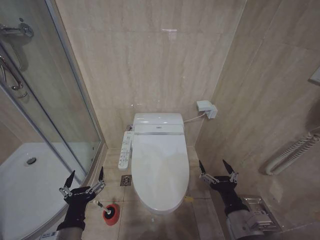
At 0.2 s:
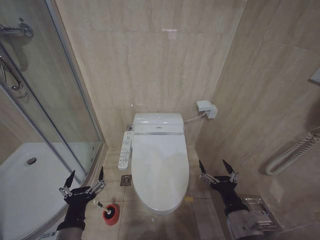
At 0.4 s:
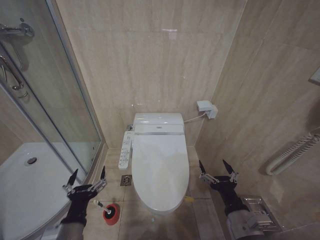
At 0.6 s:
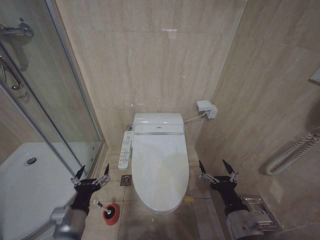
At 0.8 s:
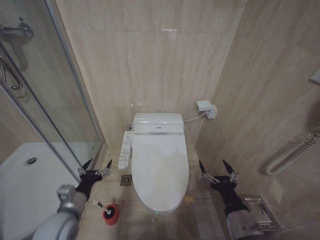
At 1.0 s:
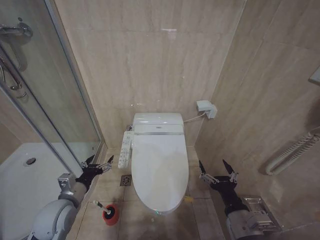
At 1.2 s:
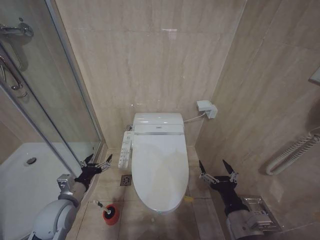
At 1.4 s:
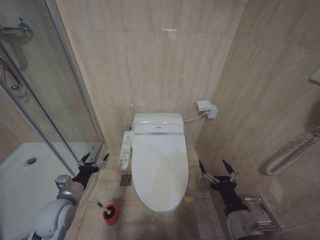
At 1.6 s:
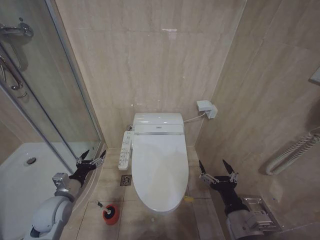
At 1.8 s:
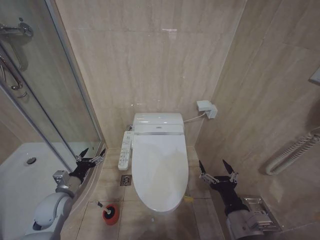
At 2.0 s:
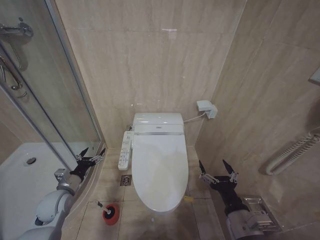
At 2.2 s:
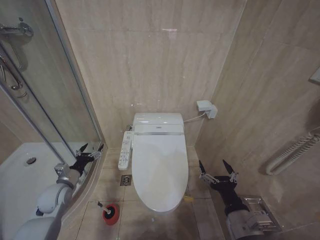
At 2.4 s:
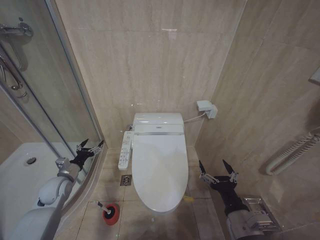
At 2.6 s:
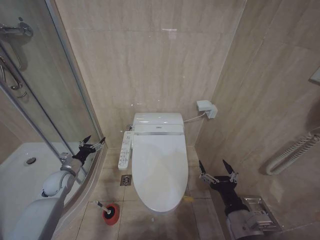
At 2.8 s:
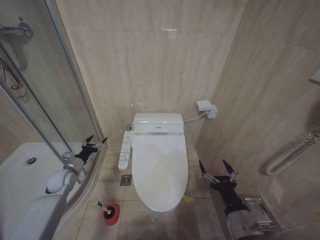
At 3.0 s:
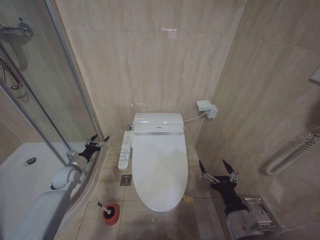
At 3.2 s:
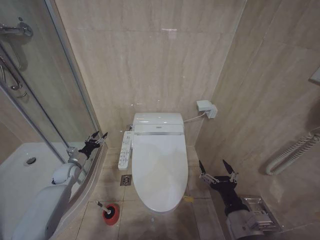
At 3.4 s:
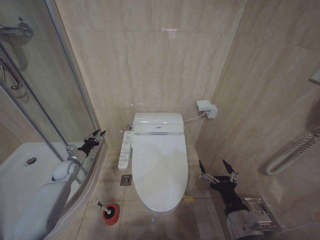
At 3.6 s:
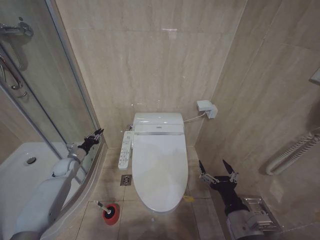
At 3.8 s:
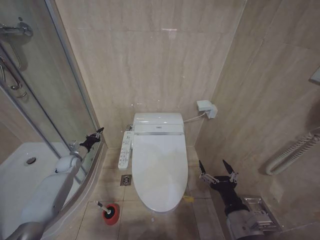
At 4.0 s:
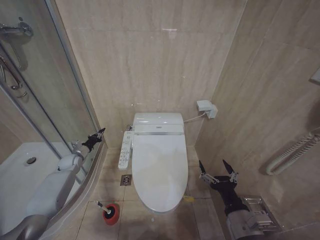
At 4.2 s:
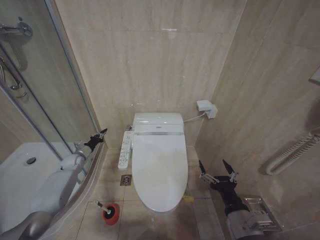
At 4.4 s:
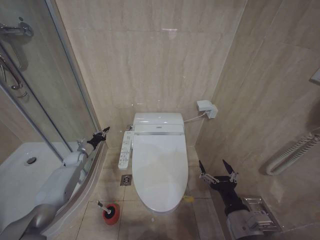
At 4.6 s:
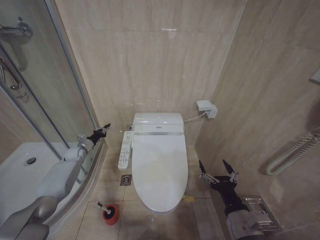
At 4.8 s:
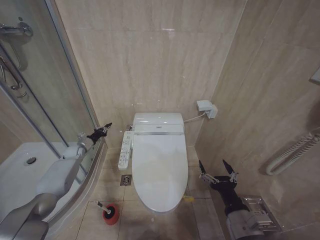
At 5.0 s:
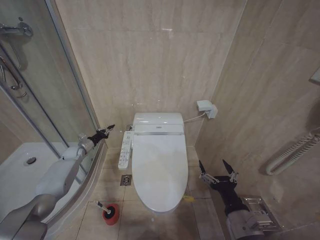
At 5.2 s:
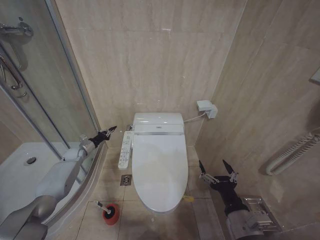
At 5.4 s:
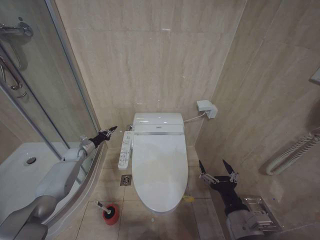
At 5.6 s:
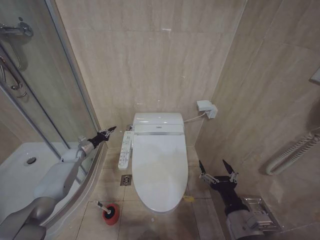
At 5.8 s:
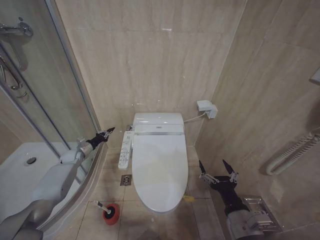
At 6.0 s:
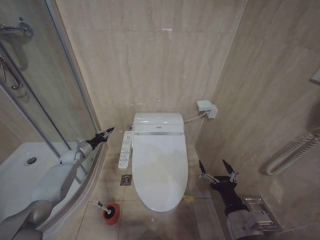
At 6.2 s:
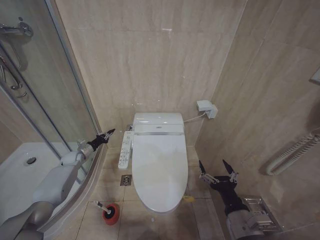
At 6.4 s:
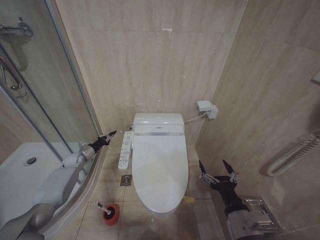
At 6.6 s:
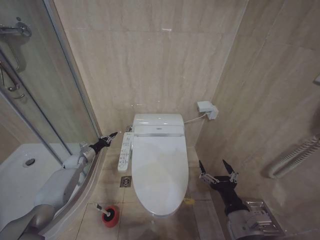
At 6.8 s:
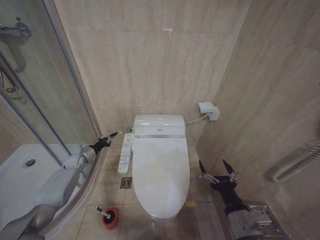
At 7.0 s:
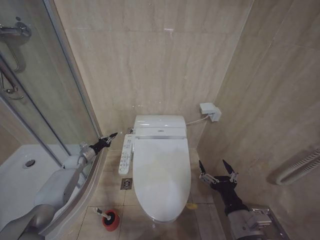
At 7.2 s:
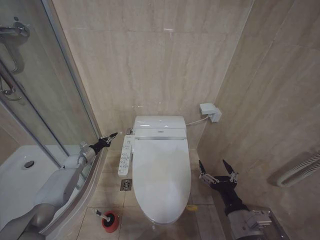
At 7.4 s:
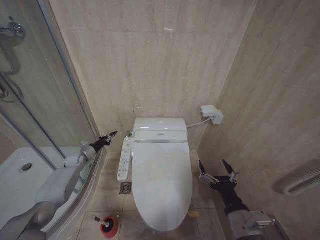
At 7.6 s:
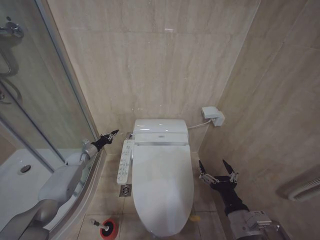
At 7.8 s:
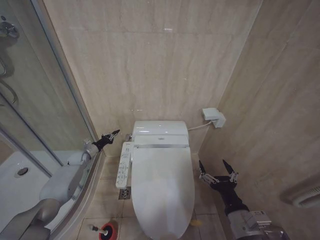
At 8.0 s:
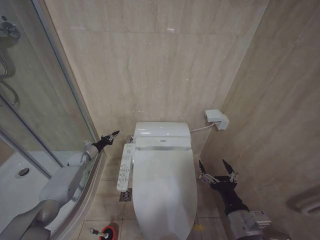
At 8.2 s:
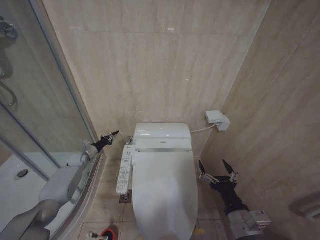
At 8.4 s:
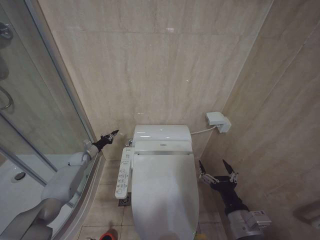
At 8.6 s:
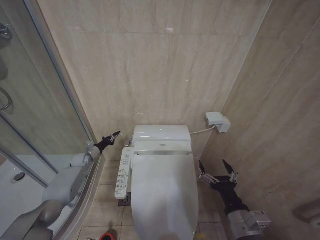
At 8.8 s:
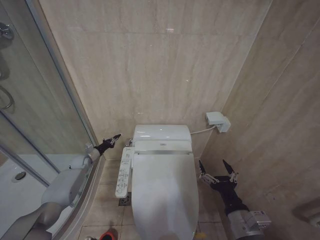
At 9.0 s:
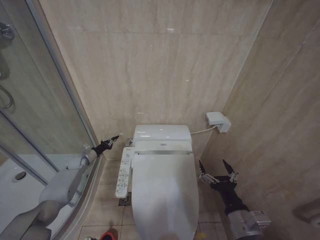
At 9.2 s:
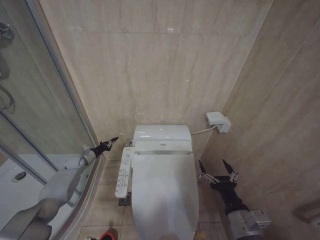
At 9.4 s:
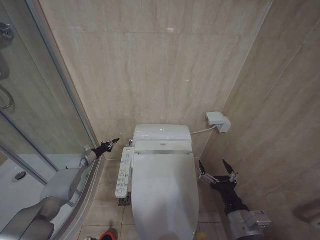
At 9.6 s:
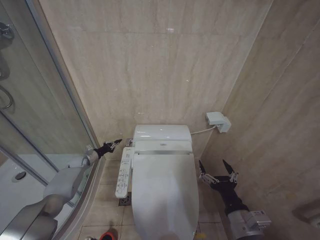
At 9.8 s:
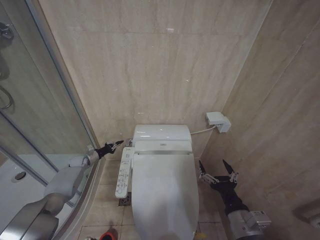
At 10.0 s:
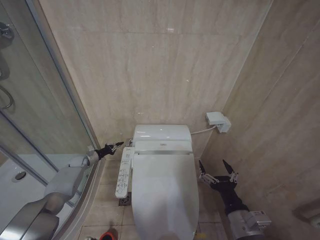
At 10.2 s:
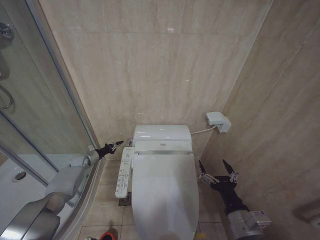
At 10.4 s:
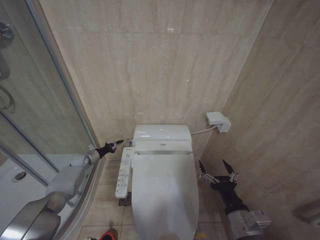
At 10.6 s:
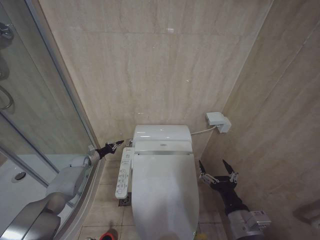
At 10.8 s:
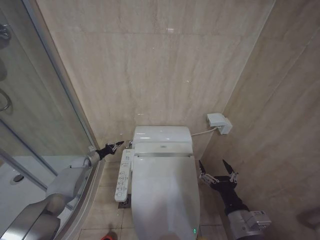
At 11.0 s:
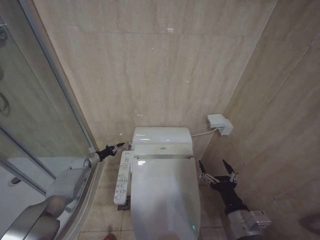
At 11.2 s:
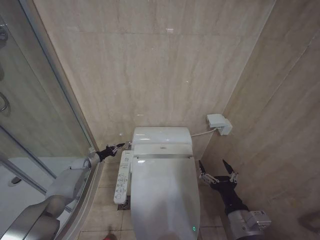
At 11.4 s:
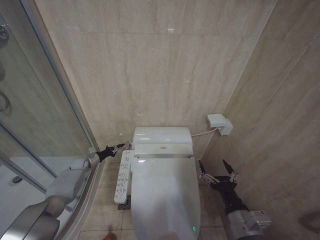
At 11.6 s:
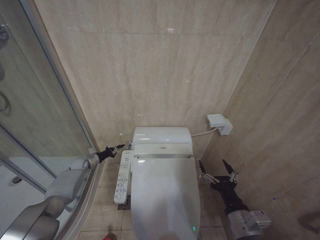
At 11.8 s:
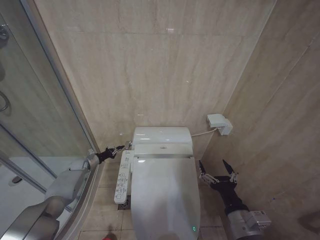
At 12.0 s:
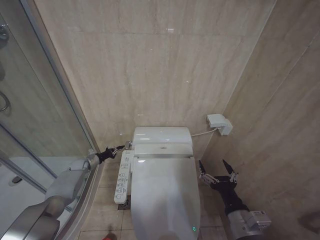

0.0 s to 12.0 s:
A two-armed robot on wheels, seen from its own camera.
Task of the whole recording: Open the toilet lid, clean the toilet bowl with a toilet brush, close the toilet lid, and flush.
0.0 to 1.6 s: The left gripper heads forward and to the left, covering about 20 cm.
1.6 to 3.0 s: The left gripper shifts some 15 cm forward and to the left.
3.0 to 4.4 s: The left gripper moves forward, about 10 cm, and closes its fingers.
4.4 to 9.0 s: The grippers stay close to where they were, moving slightly.
9.0 to 12.0 s: The grippers move only a little.

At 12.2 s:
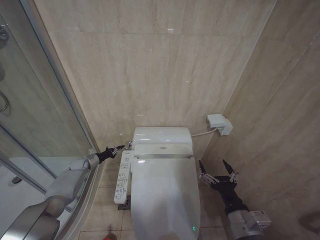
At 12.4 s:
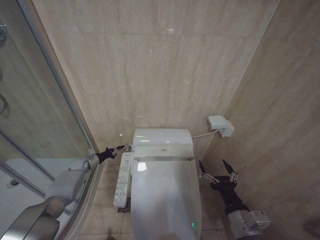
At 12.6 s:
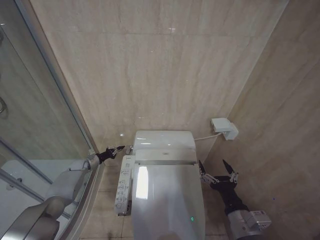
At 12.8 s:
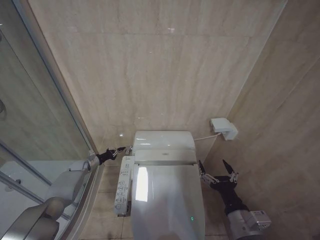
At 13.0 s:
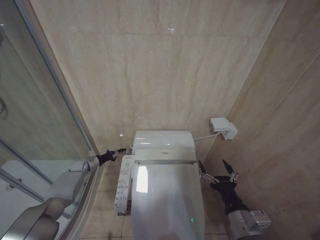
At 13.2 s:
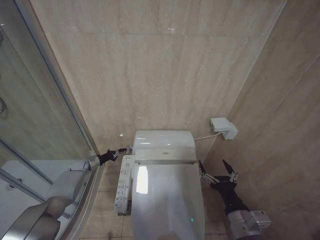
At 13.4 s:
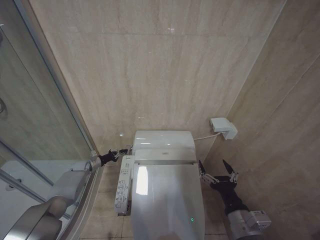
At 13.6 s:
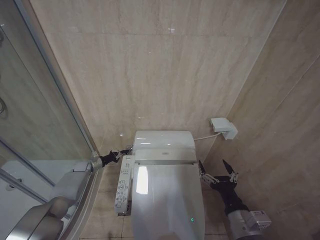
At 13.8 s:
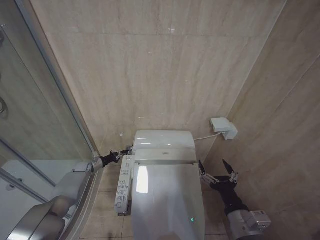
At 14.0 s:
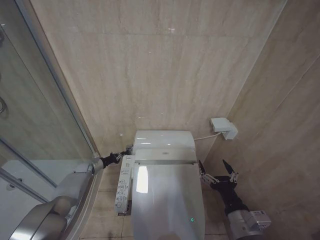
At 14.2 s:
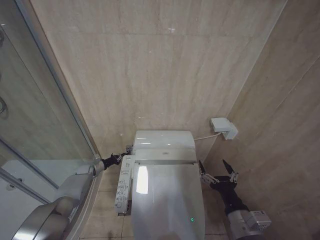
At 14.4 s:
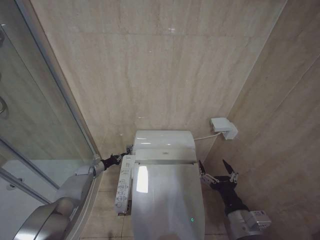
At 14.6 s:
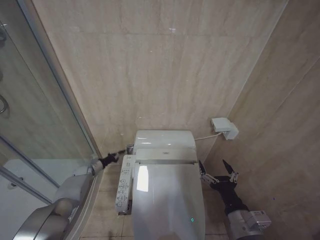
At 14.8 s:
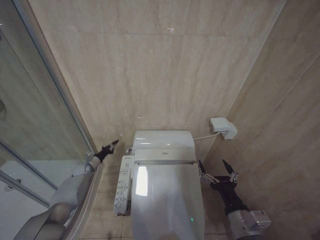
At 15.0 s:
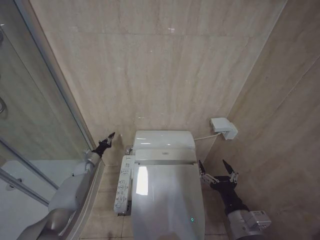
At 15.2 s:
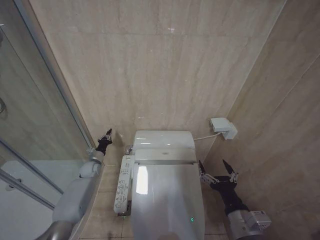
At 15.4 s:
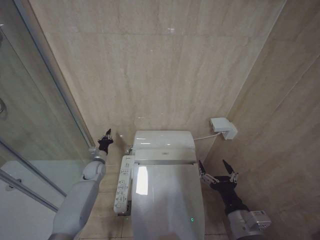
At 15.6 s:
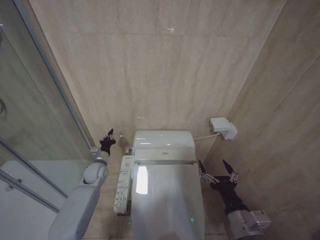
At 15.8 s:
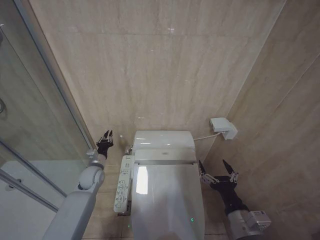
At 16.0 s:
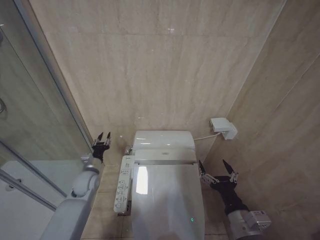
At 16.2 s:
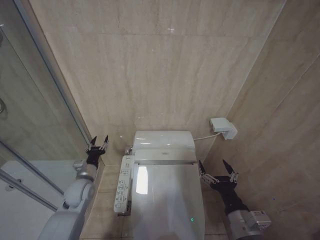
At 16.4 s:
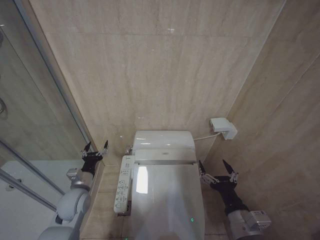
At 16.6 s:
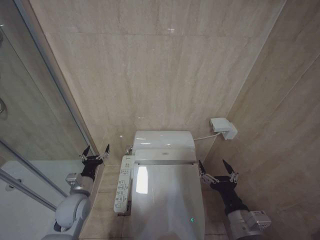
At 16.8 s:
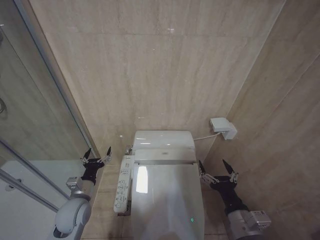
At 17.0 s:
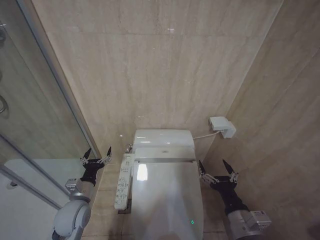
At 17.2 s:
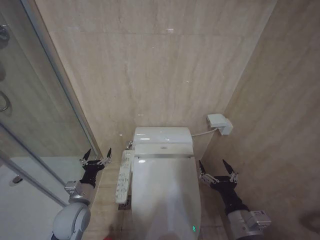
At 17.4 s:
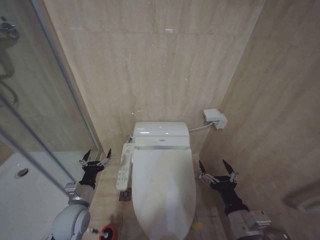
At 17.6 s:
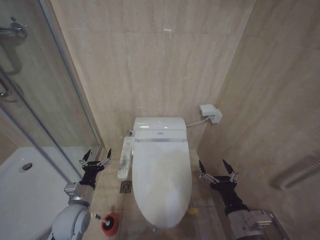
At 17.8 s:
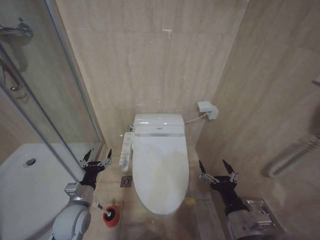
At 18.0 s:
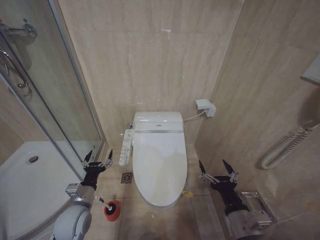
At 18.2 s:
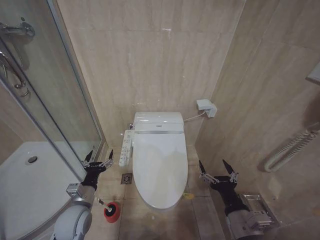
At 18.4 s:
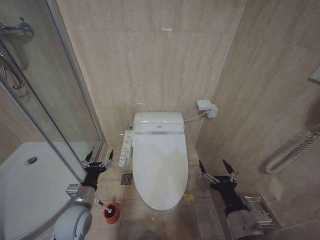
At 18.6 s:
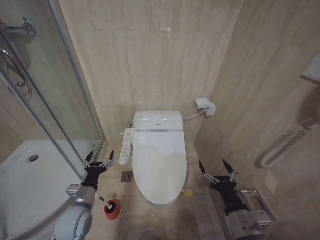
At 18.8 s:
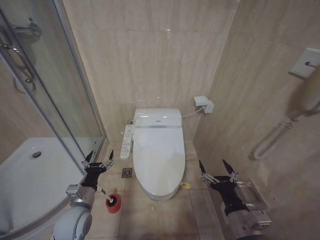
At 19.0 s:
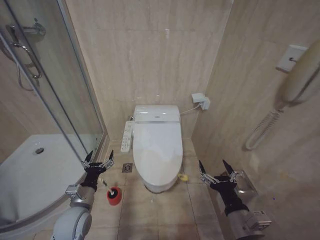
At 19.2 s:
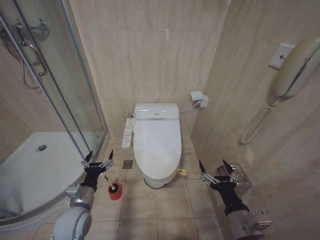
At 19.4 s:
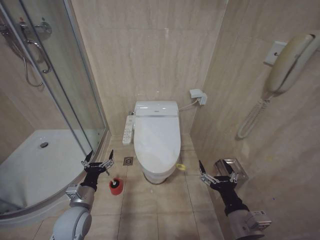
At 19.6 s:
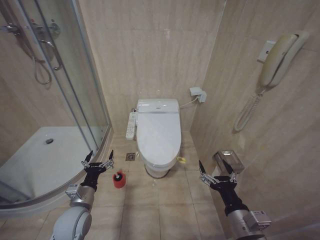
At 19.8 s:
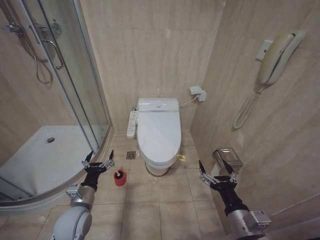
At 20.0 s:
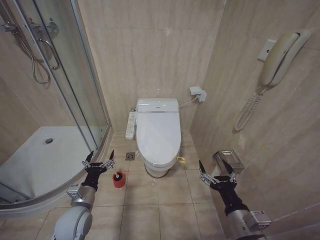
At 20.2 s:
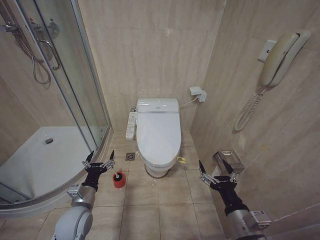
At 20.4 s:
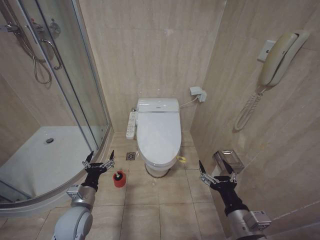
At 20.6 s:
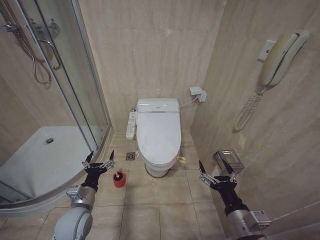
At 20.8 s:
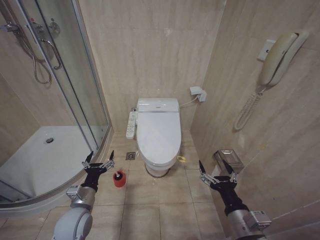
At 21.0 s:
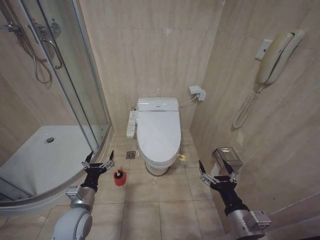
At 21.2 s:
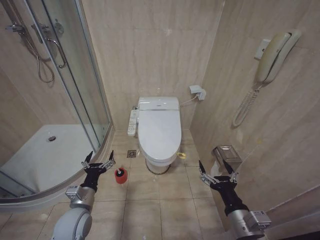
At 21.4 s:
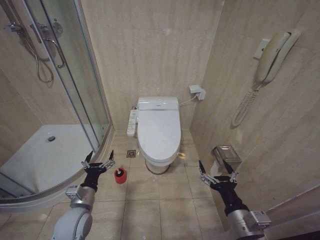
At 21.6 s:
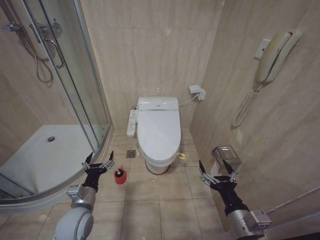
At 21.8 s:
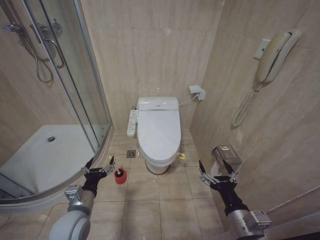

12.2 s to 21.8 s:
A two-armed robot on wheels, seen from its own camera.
Task of the whole recording: Open the toilet lid, clean the toilet bowl with a toilet brush, close the toilet lid, and flush.
12.2 to 13.8 s: The grippers move only a little.
13.8 to 15.4 s: The left gripper moves to the right and upward, some 10 cm.
15.4 to 17.0 s: The left gripper shifts about 20 cm backward, and opens.
20.2 to 21.8 s: The grippers move only a little.

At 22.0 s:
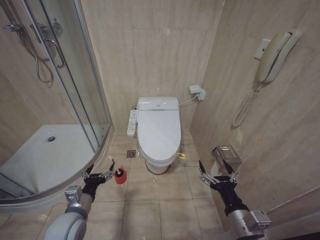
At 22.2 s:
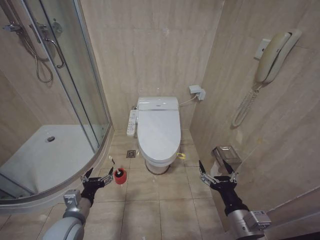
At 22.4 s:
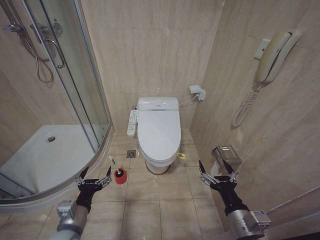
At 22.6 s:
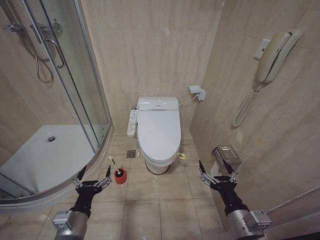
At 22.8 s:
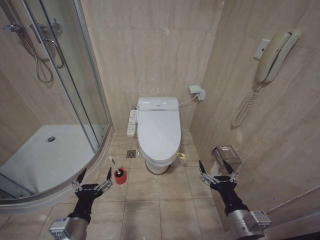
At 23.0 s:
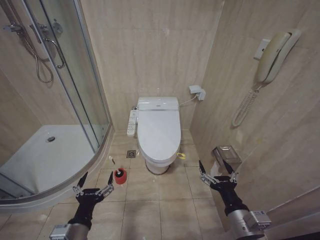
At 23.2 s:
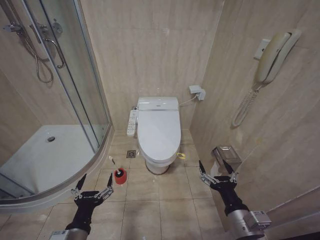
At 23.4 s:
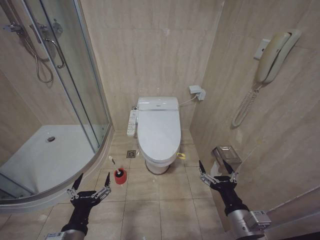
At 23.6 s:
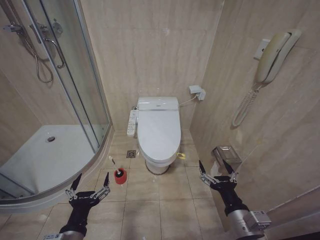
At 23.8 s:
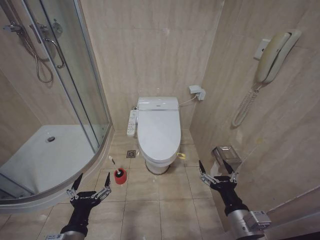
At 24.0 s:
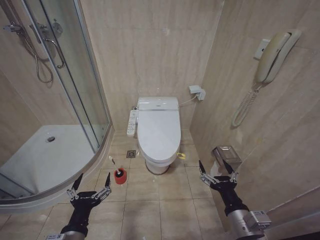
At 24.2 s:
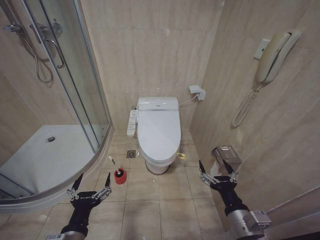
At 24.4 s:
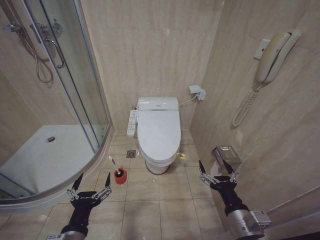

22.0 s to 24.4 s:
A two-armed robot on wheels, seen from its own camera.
Task of the whole recording: Open the toilet lid, clean the toilet bowl with a toilet brush, close the toilet lid, and flush.
22.0 to 23.2 s: The left gripper travels backward by some 10 cm.
23.2 to 24.4 s: The grippers move only a little.
